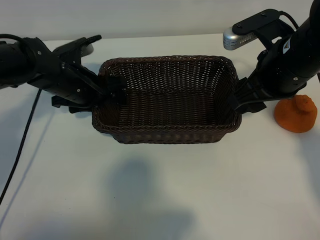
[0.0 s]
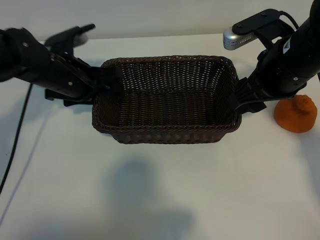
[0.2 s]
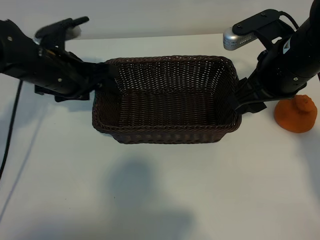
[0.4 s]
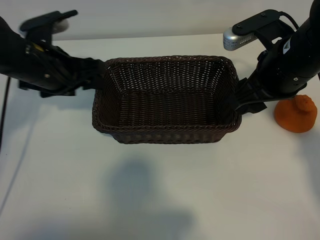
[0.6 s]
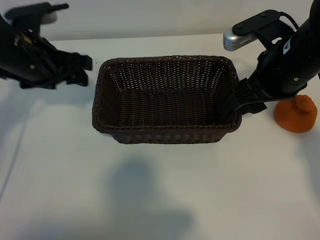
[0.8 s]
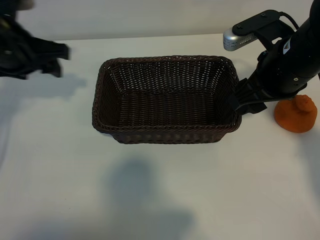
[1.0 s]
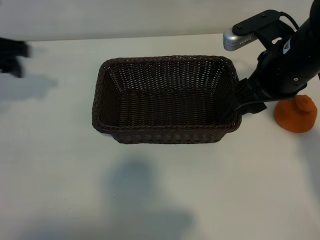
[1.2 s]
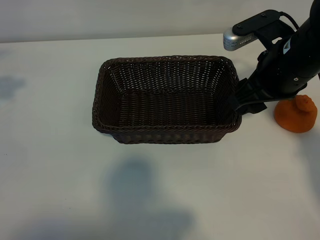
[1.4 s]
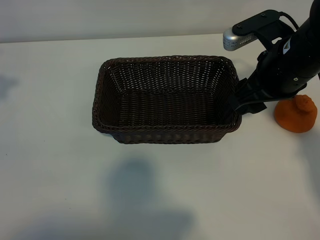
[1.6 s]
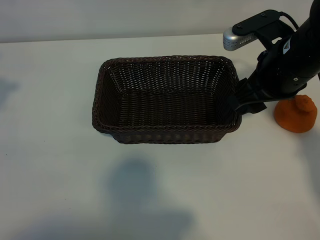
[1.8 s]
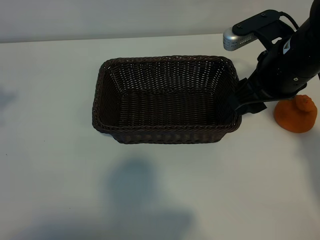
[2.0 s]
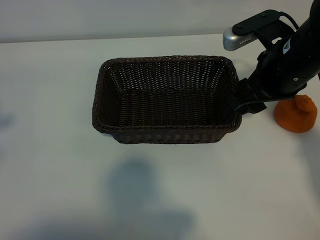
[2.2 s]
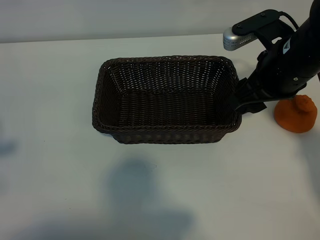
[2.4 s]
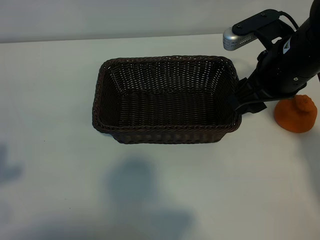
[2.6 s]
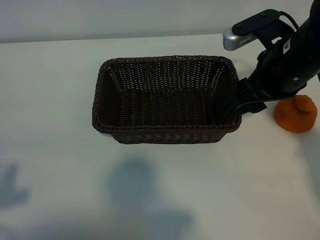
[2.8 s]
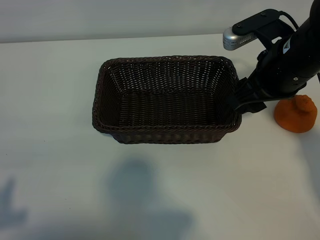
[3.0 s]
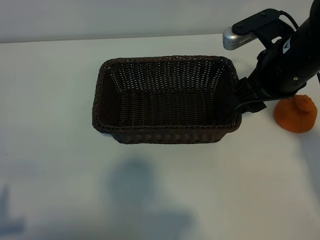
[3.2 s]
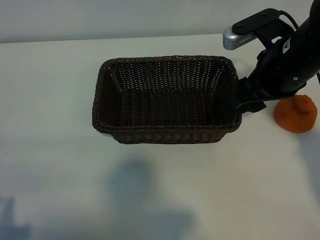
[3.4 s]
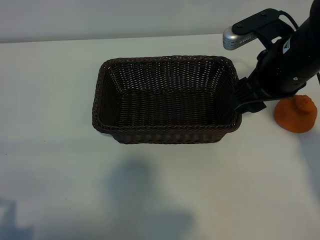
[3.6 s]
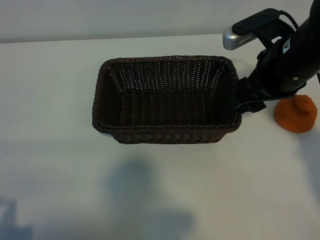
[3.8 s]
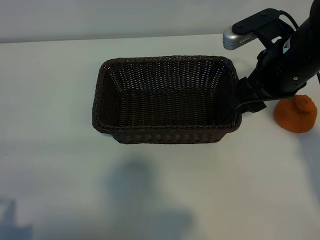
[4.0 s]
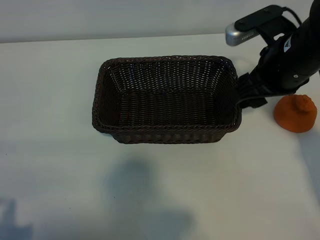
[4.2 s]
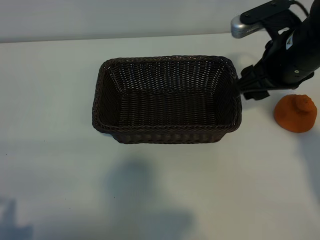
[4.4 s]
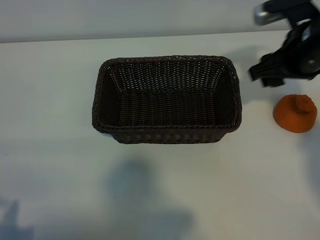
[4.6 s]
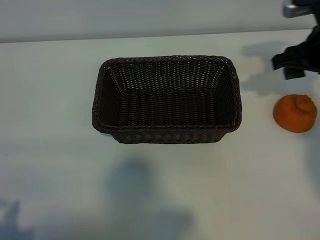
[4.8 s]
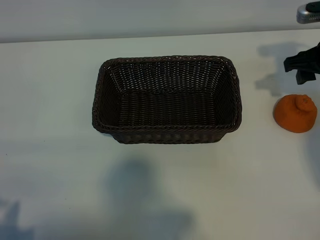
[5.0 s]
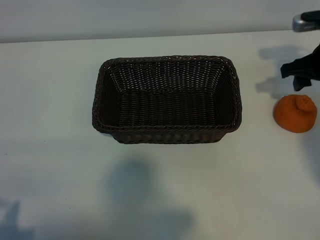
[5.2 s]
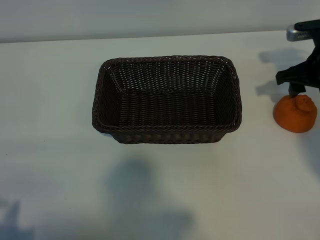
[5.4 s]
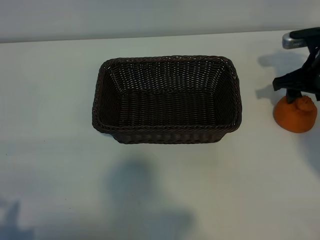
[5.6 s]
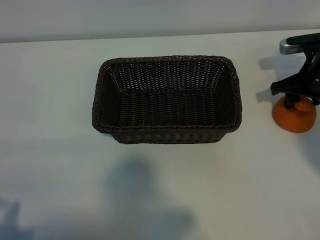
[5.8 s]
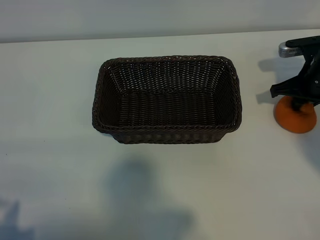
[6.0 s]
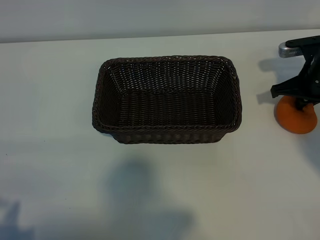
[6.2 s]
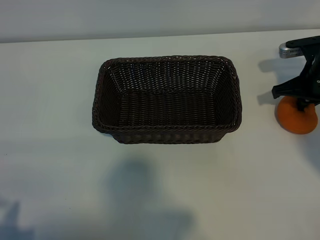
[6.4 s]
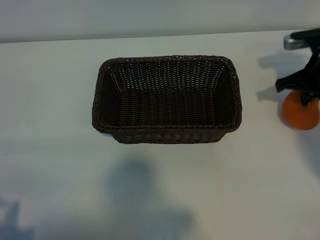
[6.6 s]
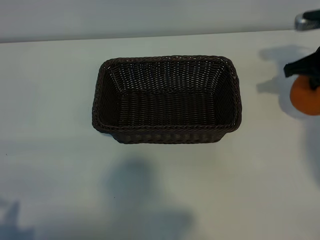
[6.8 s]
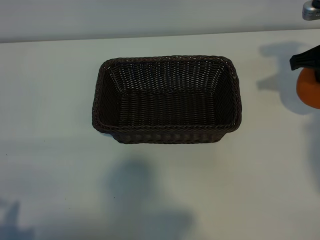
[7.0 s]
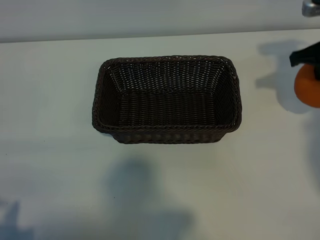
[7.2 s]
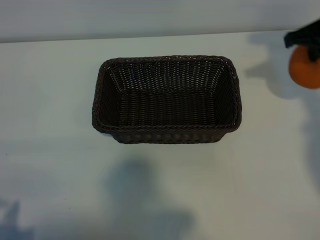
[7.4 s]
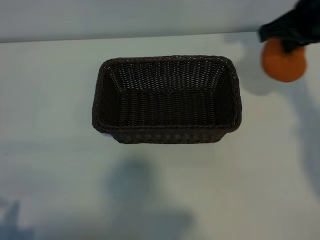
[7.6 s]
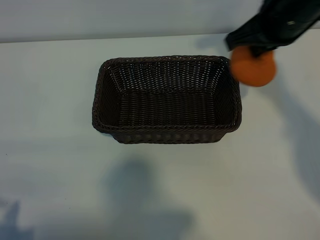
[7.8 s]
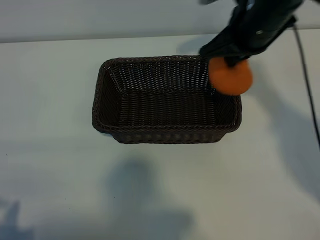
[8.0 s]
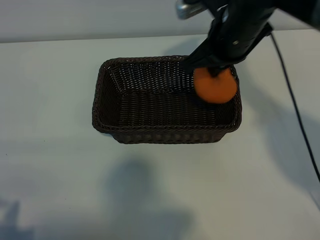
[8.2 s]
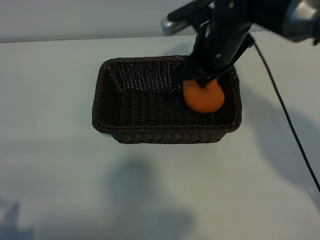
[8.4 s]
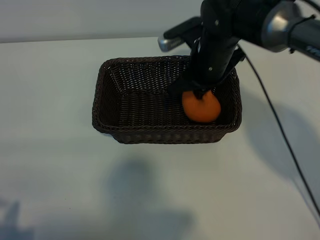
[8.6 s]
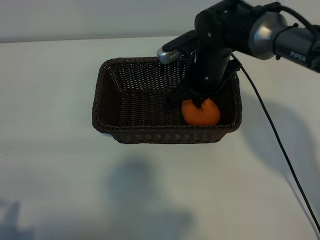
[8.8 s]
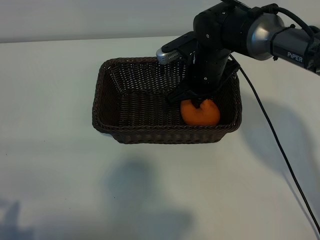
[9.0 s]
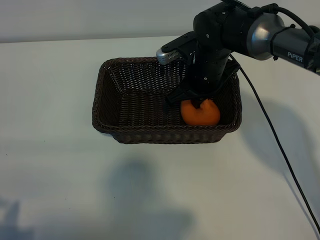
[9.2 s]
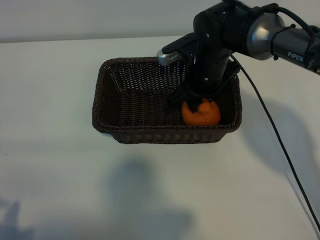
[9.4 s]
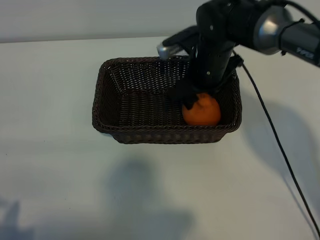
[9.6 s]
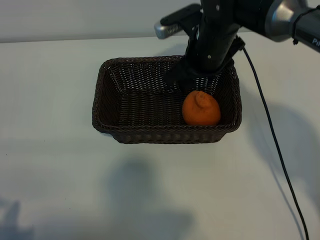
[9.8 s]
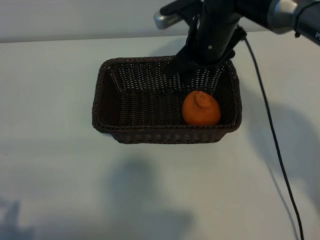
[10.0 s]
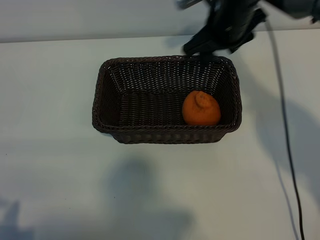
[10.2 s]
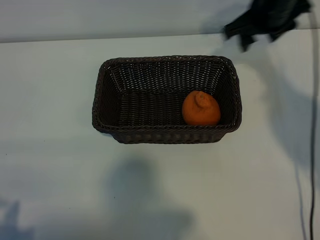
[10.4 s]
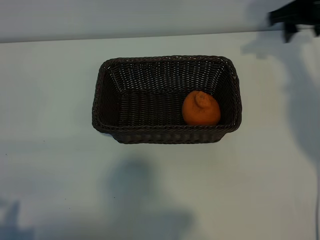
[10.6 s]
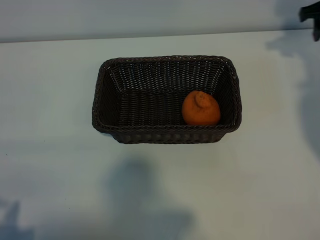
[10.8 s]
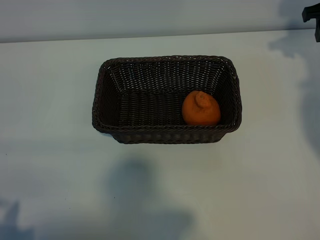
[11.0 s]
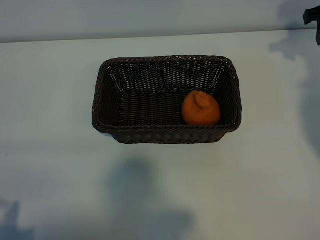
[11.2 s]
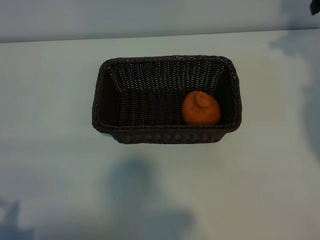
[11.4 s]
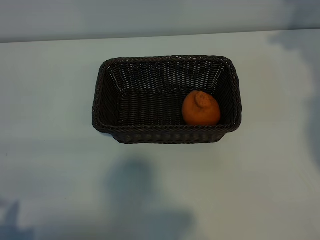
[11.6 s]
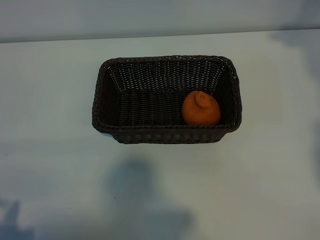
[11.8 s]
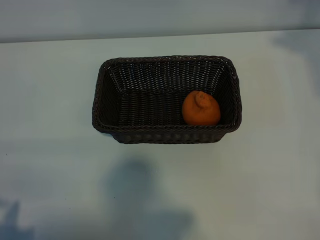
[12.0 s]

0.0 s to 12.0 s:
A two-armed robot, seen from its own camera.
Task of the whole recording: pick up the orange and put it into the basket.
Step, 0.0 to 6.2 s: Grasp the orange with right gripper.
Step, 6.4 to 9.4 s: Place the orange in the basket with right gripper.
